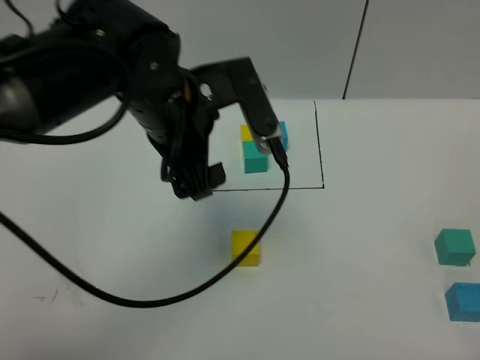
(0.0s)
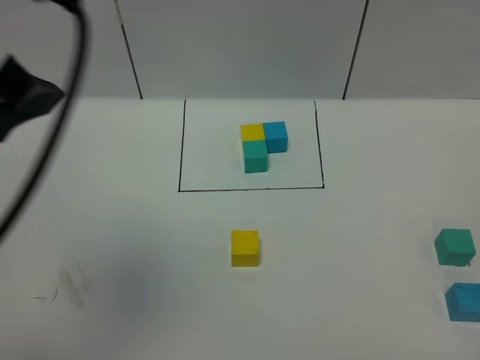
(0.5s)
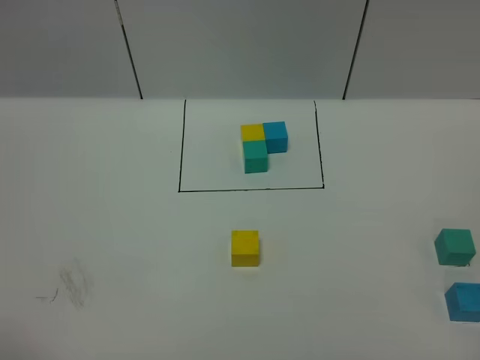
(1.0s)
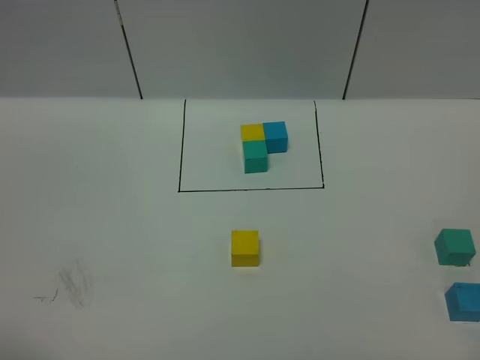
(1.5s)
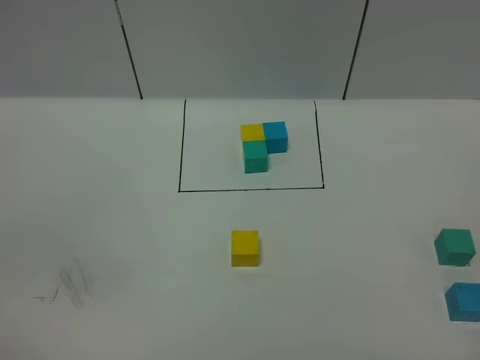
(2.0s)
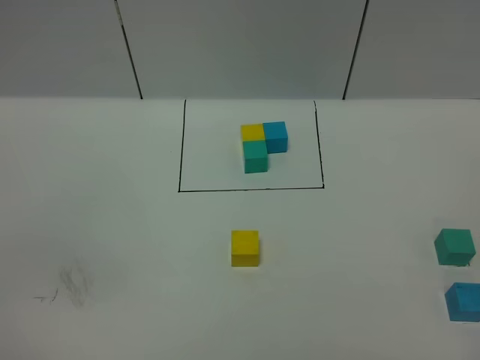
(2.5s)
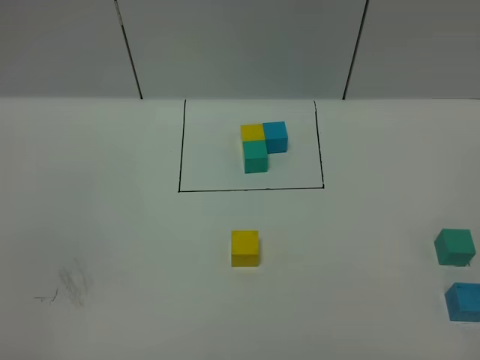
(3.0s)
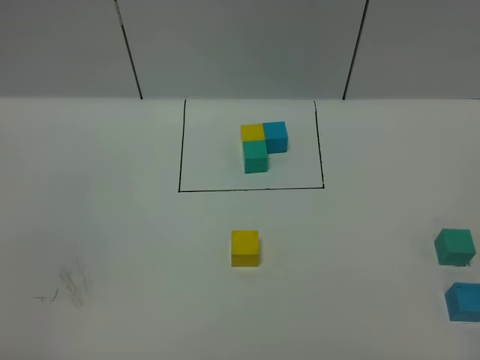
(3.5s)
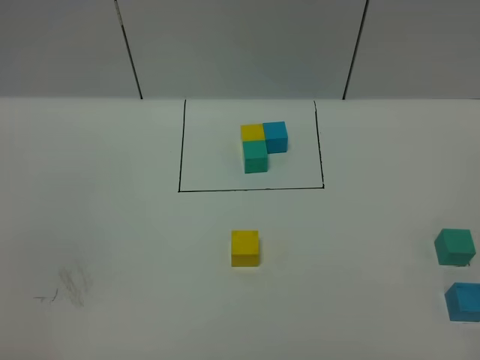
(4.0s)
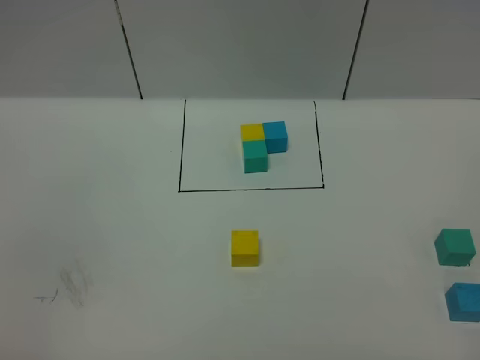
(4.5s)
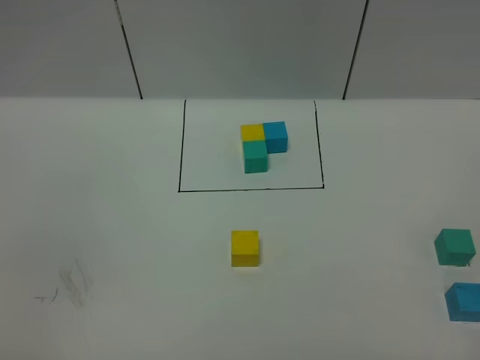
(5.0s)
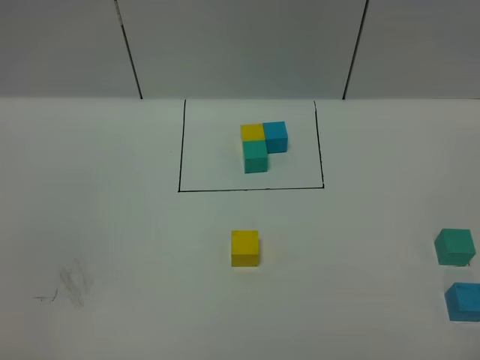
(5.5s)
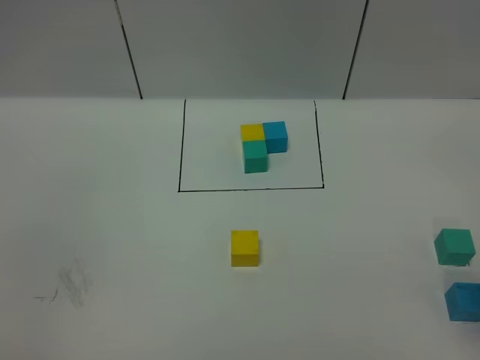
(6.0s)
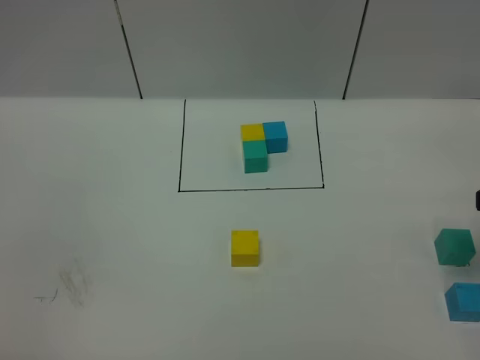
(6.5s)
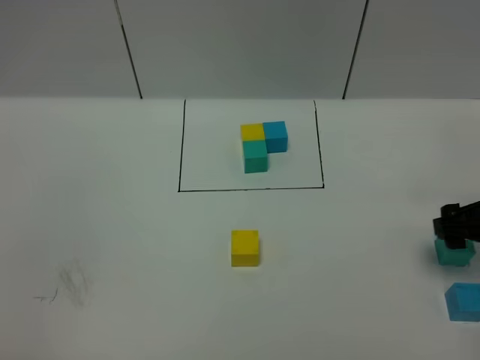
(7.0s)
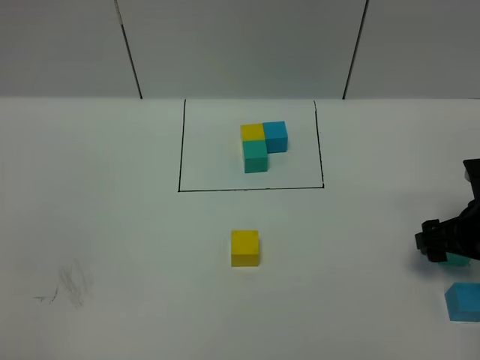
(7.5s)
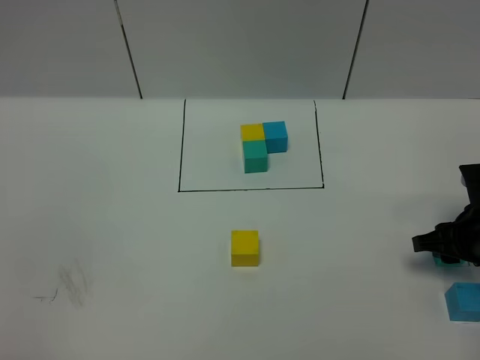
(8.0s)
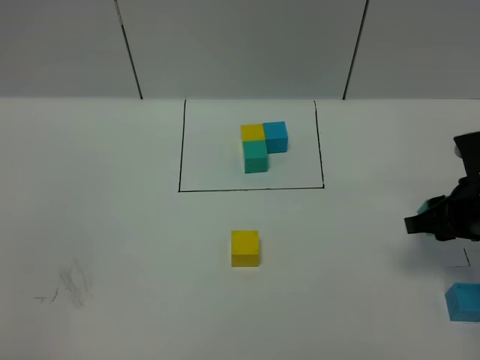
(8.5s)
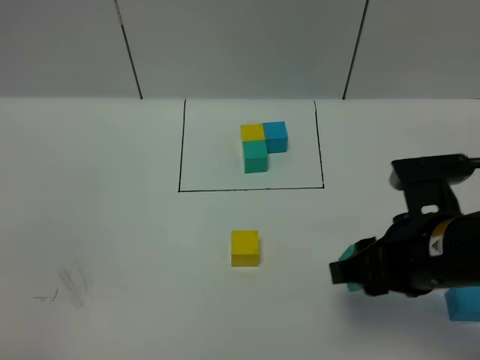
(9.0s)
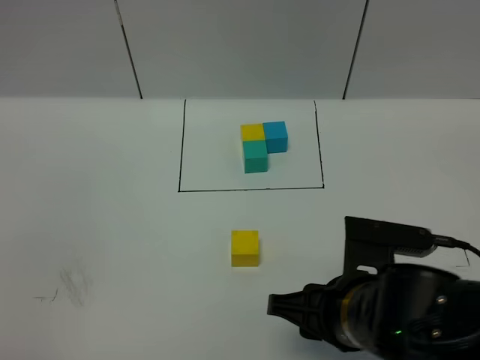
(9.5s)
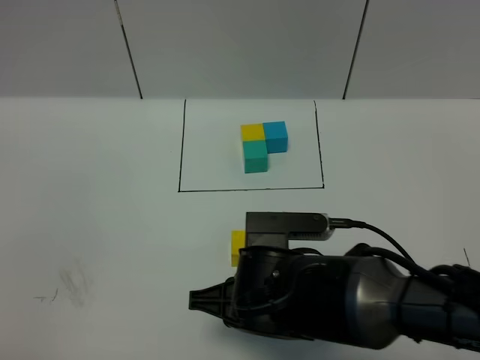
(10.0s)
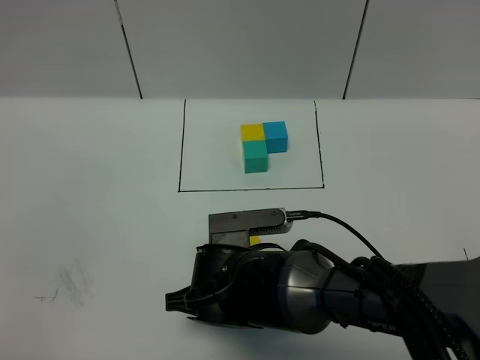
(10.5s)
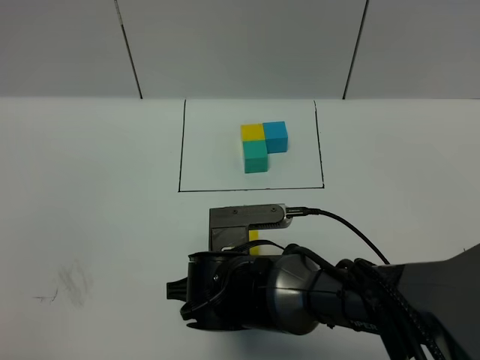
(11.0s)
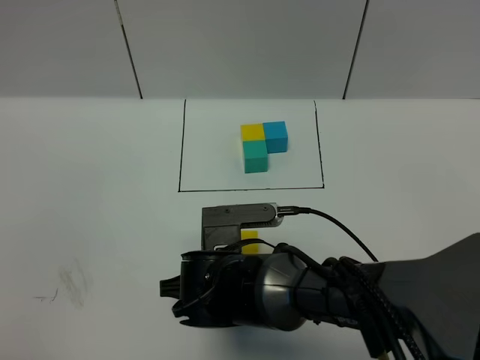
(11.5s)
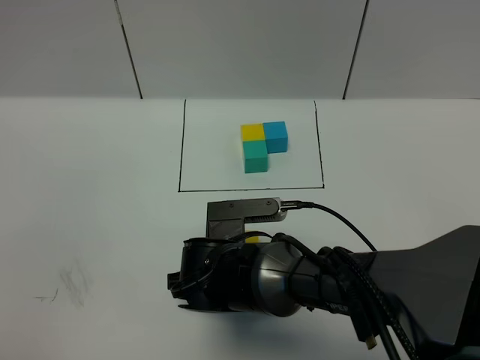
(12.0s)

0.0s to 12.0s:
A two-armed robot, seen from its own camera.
Task of the whole recording: According to the building block template in front, assemble the scattered blocks together.
0.0s to 2.0s: The left gripper is displaced backward and to the left by some 40 cm.
6.0s to 8.0s: The right gripper heads downward and forward, covering about 20 cm, and closes up.
8.0s to 10.0s: The right gripper is displaced to the left by some 30 cm.
10.0s to 12.0s: The right gripper travels downward by roughly 5 cm.

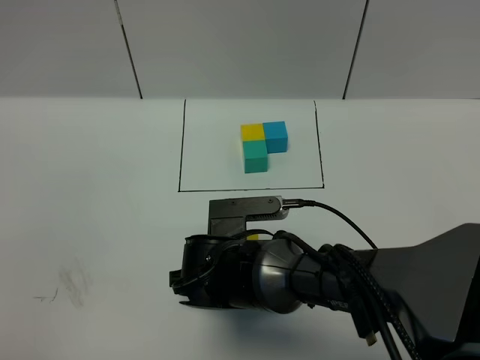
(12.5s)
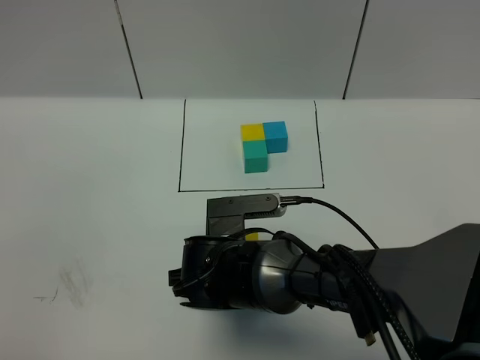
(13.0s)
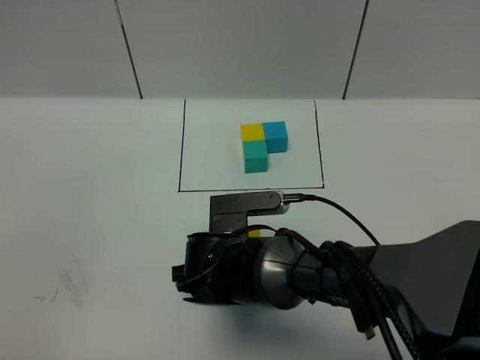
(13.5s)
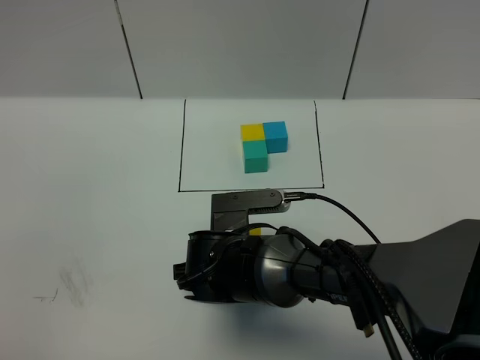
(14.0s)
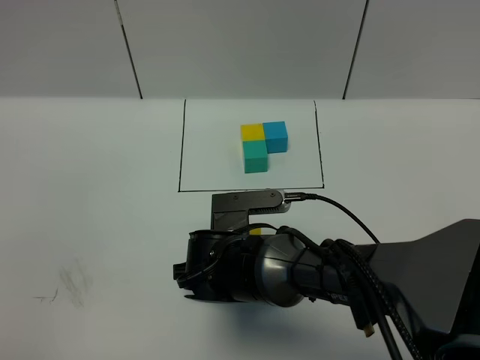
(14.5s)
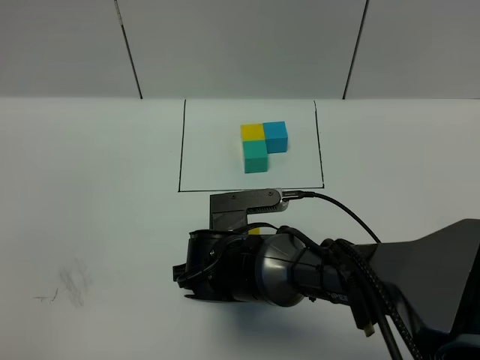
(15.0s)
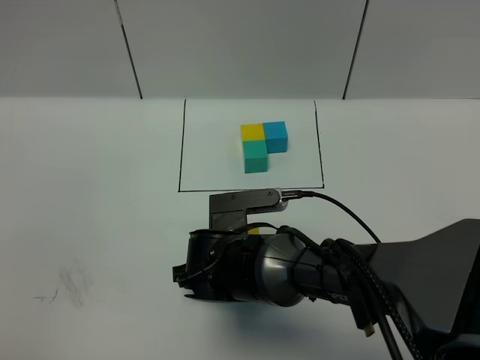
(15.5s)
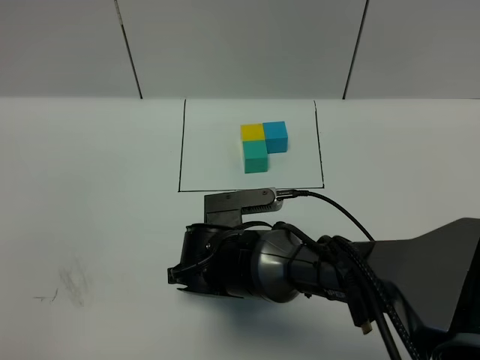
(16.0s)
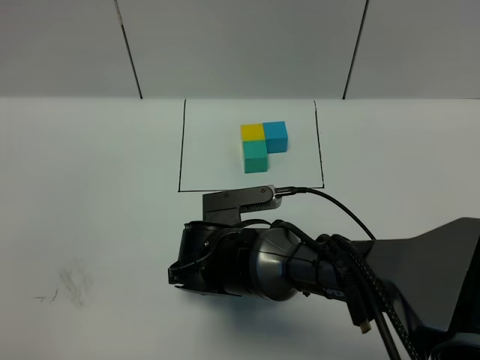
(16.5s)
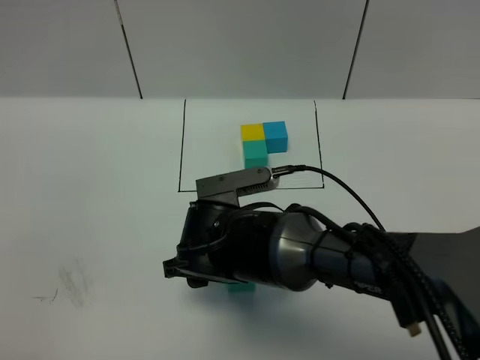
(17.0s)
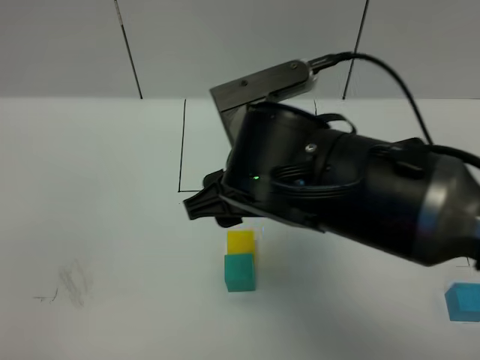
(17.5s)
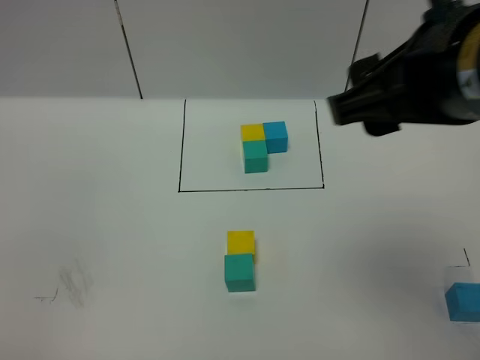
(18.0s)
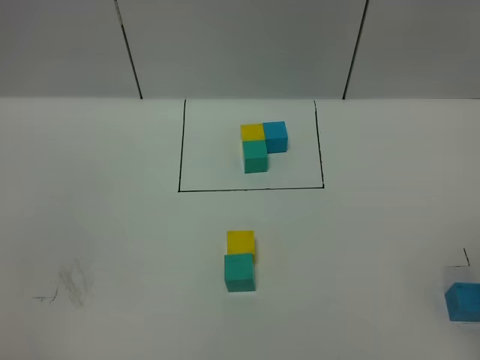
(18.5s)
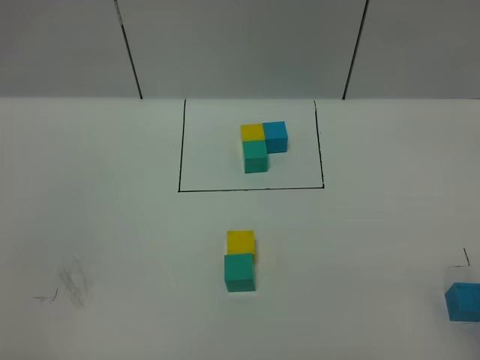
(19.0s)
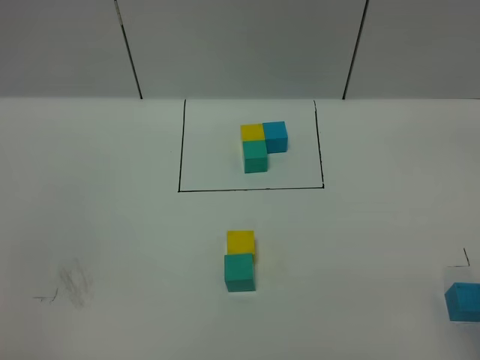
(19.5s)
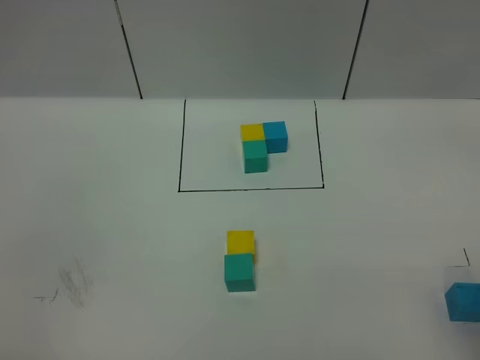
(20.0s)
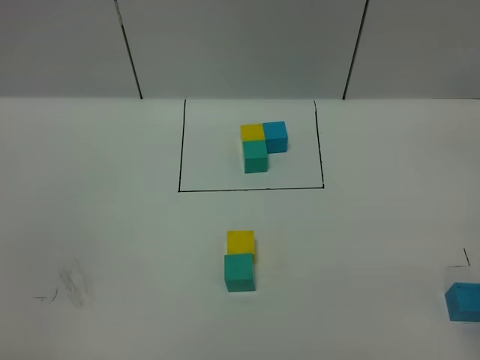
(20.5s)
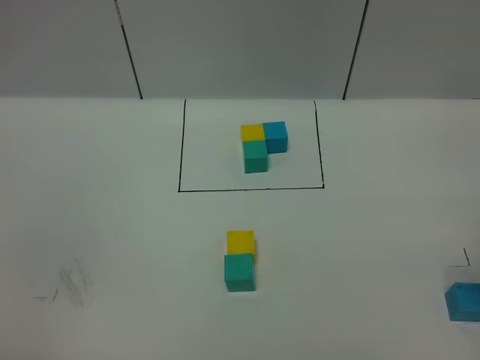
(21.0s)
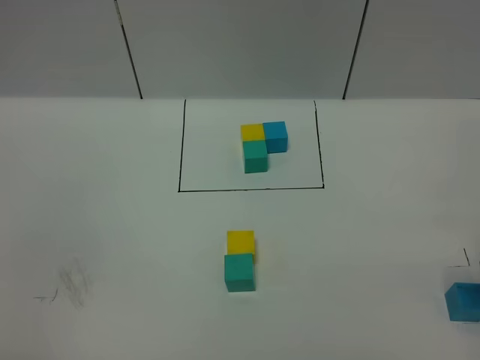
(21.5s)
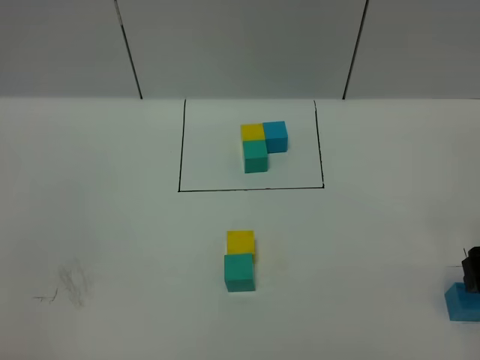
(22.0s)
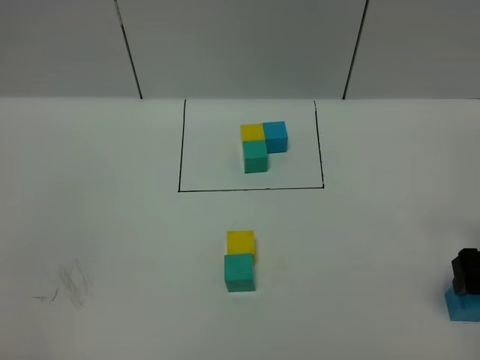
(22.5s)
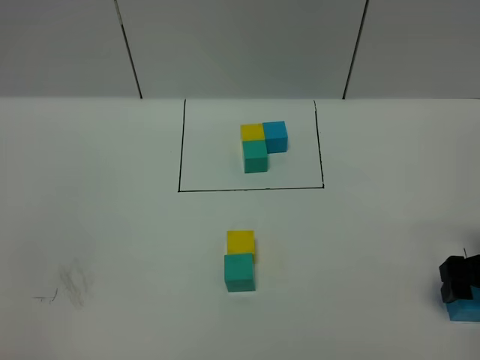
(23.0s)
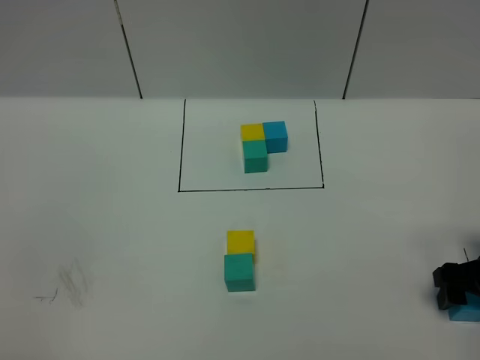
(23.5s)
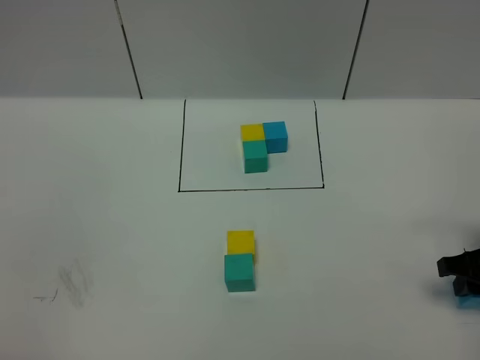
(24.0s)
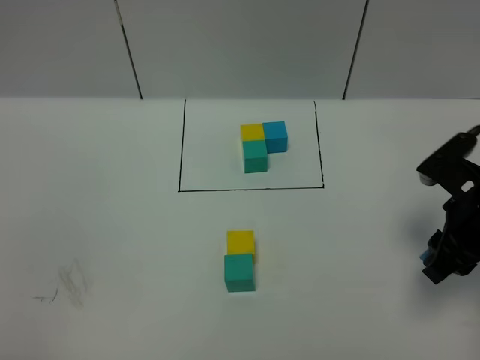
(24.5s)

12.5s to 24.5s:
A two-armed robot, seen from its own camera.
Task of the whole recording: According to the building block template in front, assemble the scattered blocks together.
Step, 12.5s to 17.0s: Put the green cube in the front of the yellow cube.
12.5s to 16.5s: Both grippers stay about where they are.
16.5s to 18.5s: The right gripper travels upward and to the right by some 40 cm.
20.5s to 22.5s: The right gripper moves downward and forward, approximately 20 cm.
22.5s to 24.5s: The right gripper shifts roughly 5 cm to the left, and closes up.

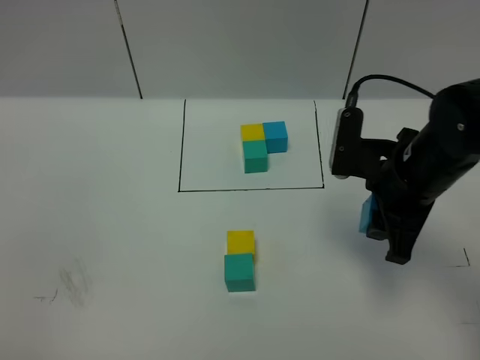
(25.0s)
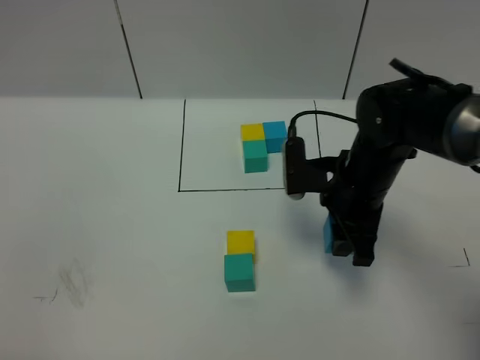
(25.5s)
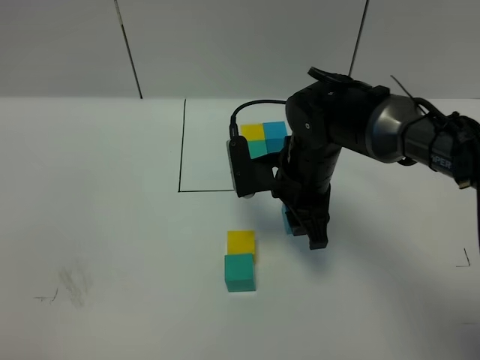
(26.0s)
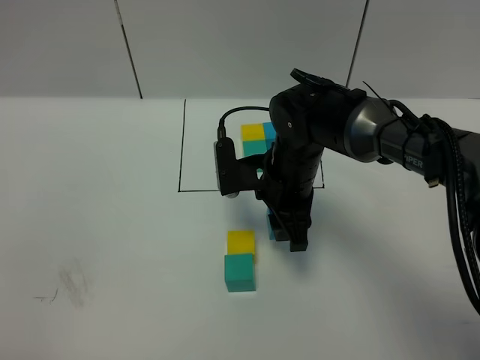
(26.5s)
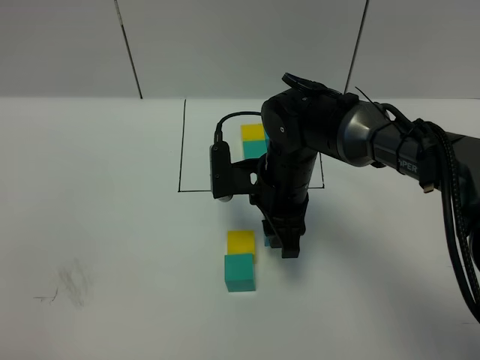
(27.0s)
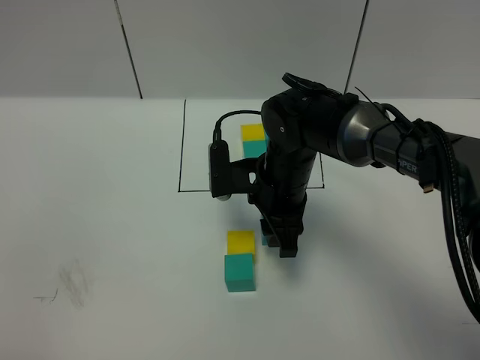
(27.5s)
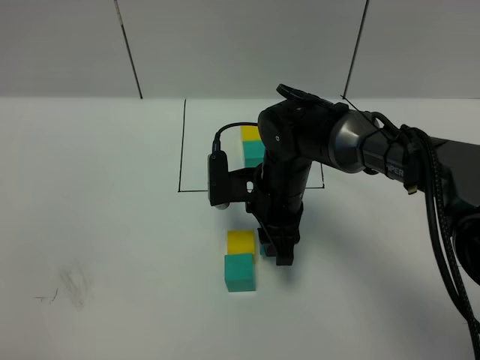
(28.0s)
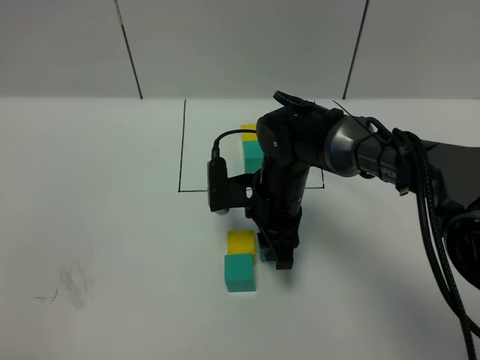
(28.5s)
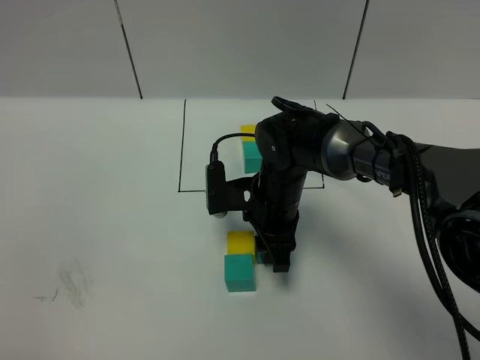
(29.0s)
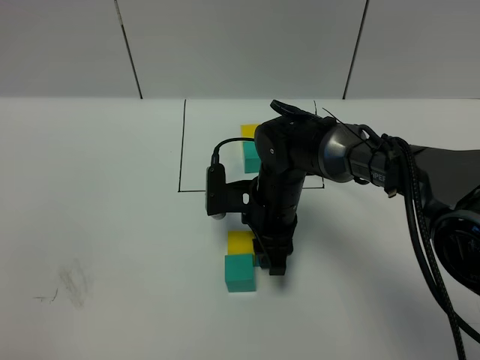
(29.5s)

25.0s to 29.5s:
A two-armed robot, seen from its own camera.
Task of the whole recording: According to the building block template in front, assemble the scattered blocks together.
25.0s to 27.0s: The right gripper shifts roughly 15 cm to the left and downward.
27.0s to 29.5s: The grippers stay close to where they were, moving slightly.
